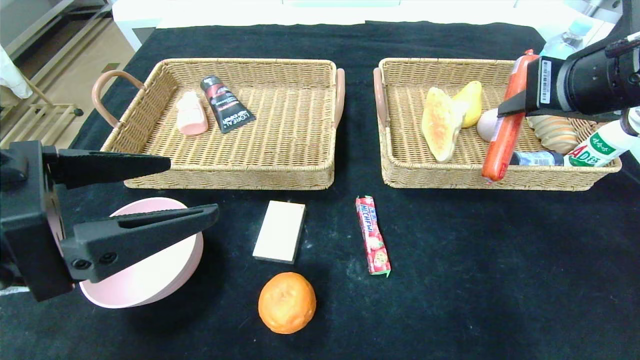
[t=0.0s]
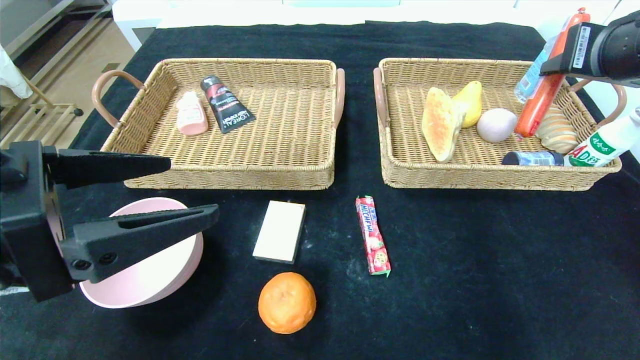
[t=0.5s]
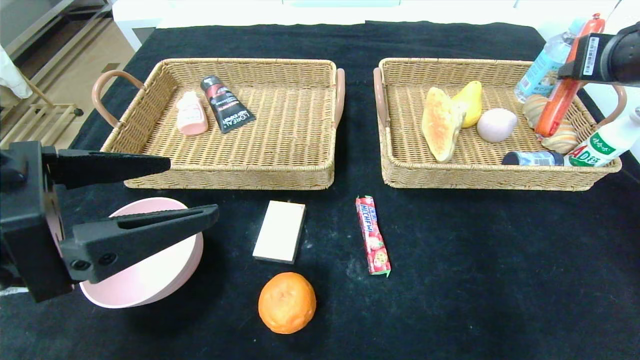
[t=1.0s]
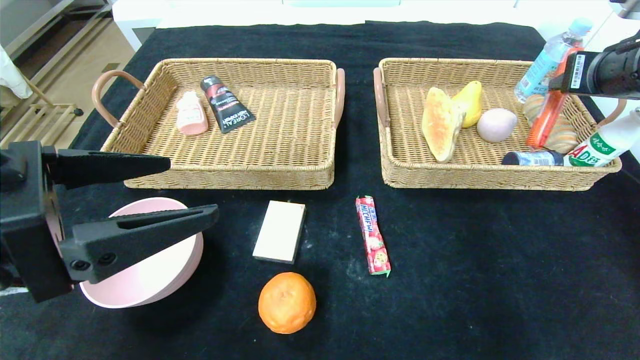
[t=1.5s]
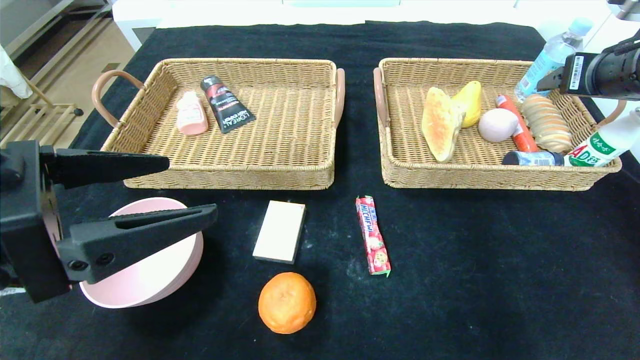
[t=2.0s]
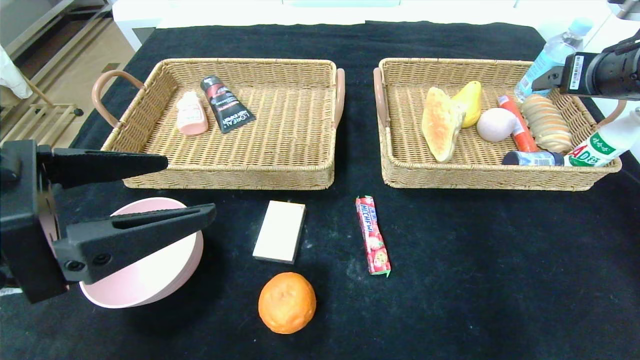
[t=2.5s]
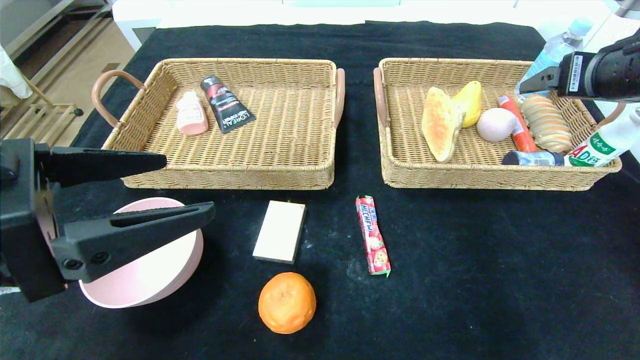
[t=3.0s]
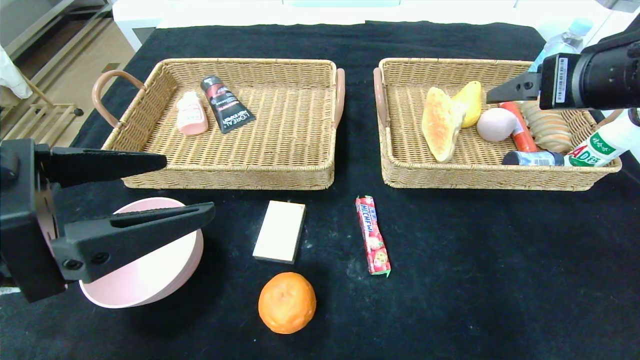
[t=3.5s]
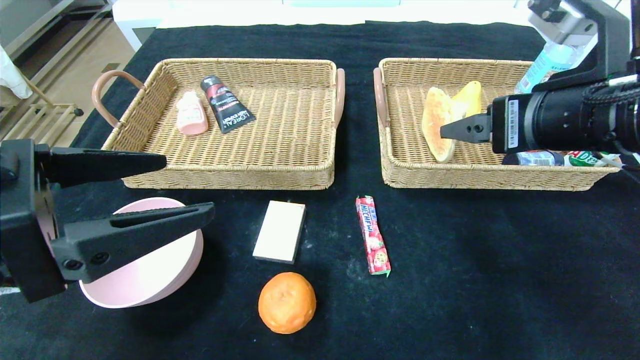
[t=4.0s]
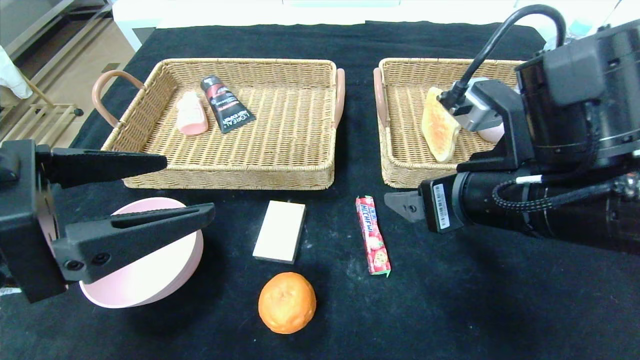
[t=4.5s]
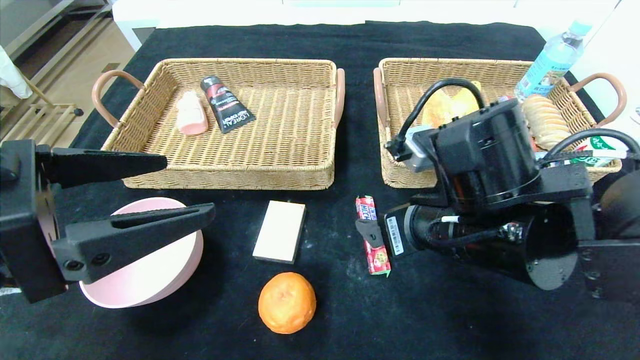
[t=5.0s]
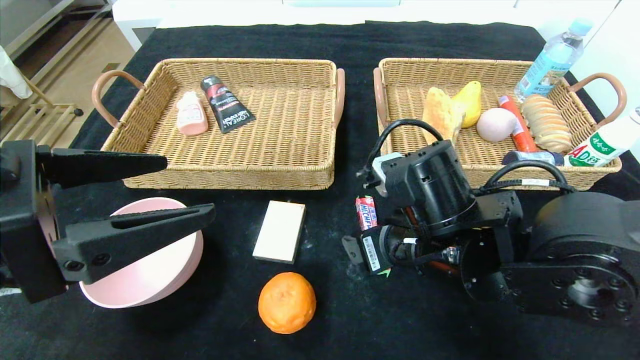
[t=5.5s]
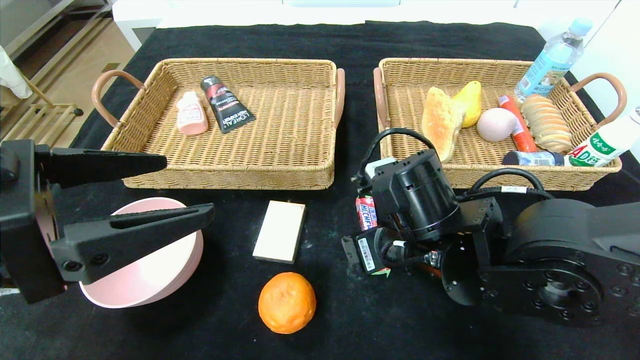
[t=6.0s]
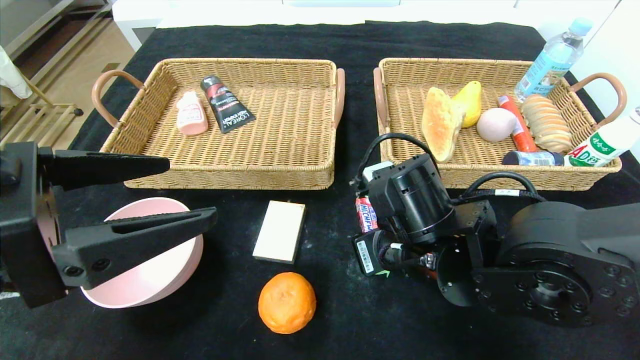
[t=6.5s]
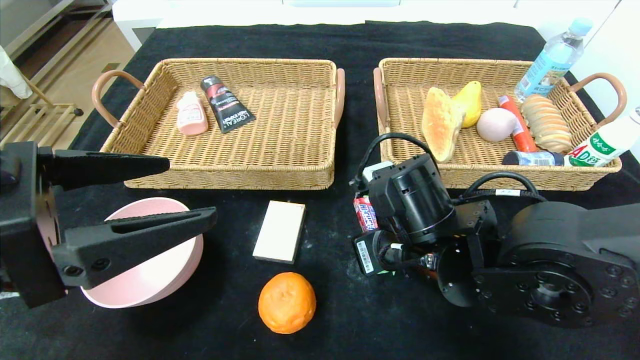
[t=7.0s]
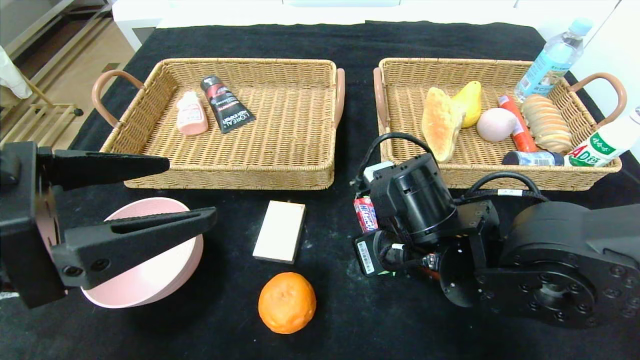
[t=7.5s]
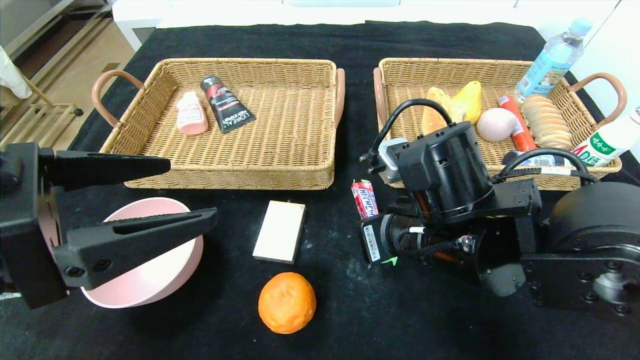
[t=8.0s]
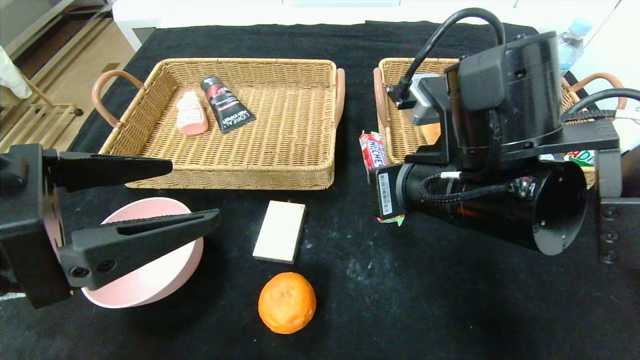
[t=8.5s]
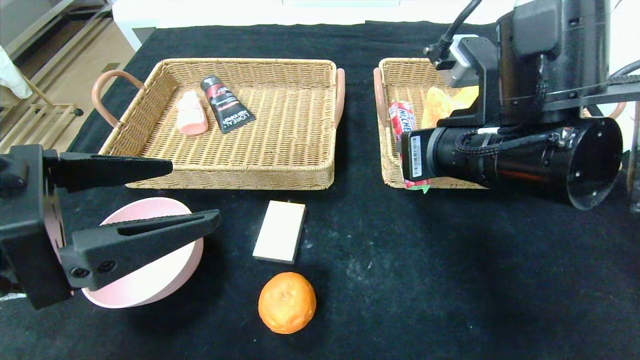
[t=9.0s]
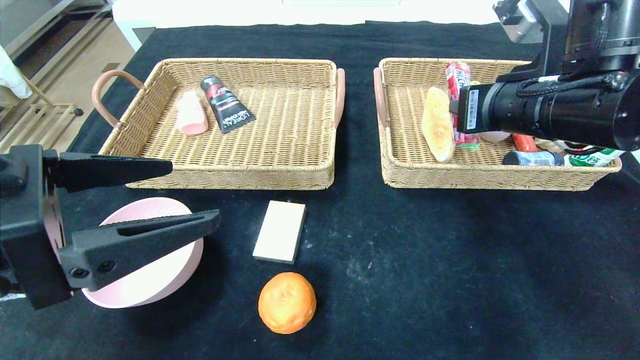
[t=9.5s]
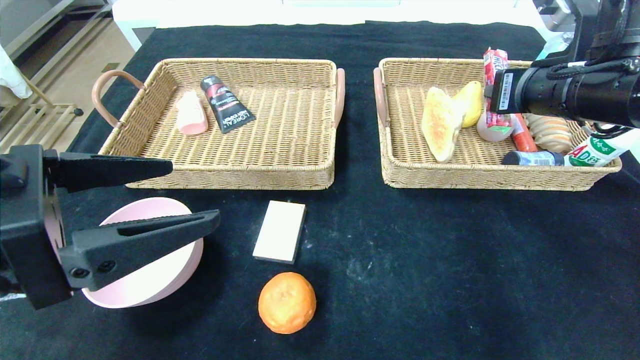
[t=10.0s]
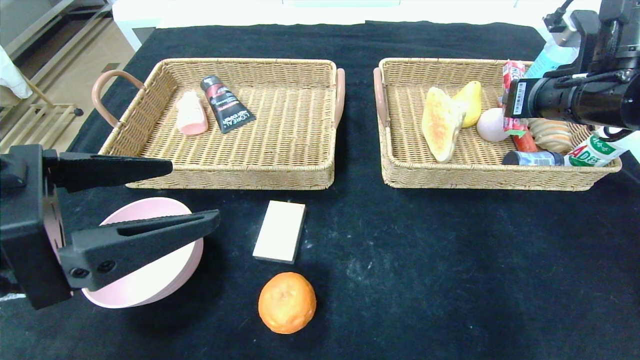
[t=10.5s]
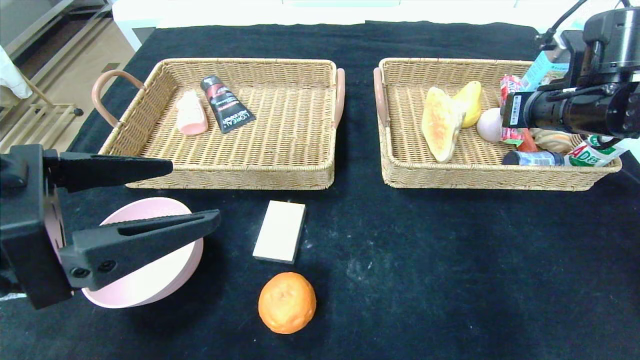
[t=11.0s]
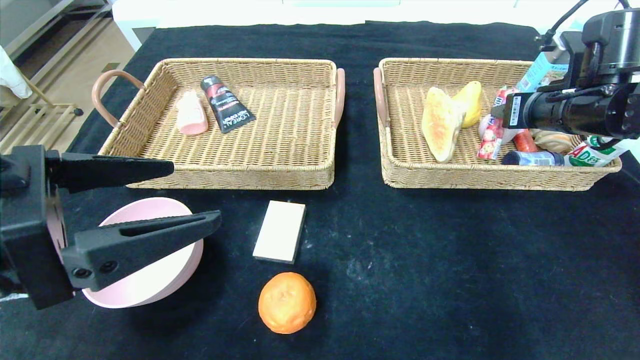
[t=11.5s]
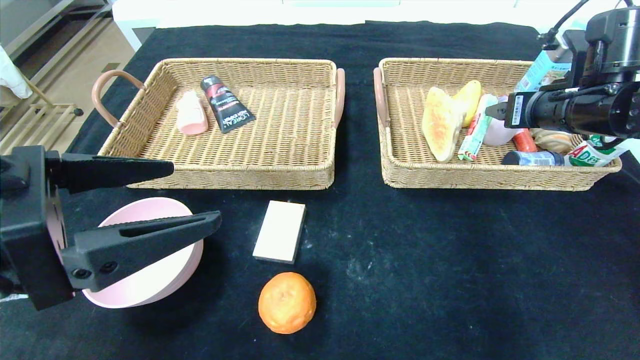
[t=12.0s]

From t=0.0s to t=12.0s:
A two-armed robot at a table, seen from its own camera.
Step, from t=0.0s to t=2.0s: Grasp the sausage and put it in the right basket.
Step, from t=2.5s to t=11.5s: Grasp the fruit fudge and put it in the right basket.
From t=0.0s to t=2.0s: The right gripper heads to the right and forward, covering some 10 cm, and opens its fingers.
From t=2.0s to t=4.0s: The right gripper goes about 15 cm to the left and backward.
From t=4.0s to t=6.0s: The right gripper shifts approximately 20 cm downward and to the left.
From t=6.0s to t=8.0s: The right gripper closes.
From t=8.0s to t=10.0s: The right gripper shifts roughly 20 cm to the right, upward and forward.
From t=10.0s to t=12.0s: The right gripper heads to the right, covering about 5 cm, and opens its fingers.

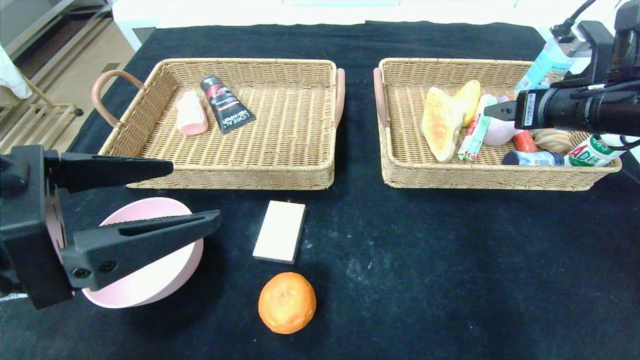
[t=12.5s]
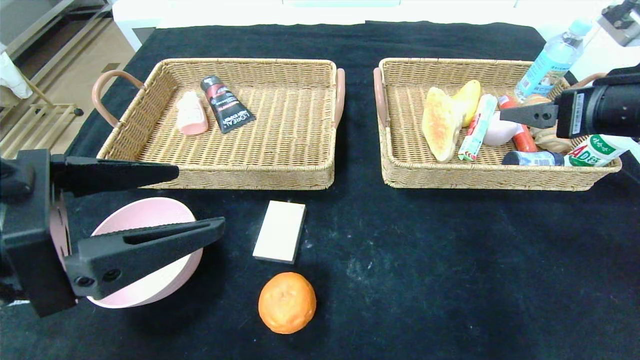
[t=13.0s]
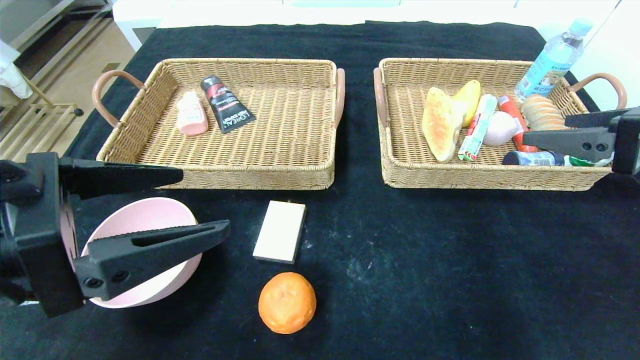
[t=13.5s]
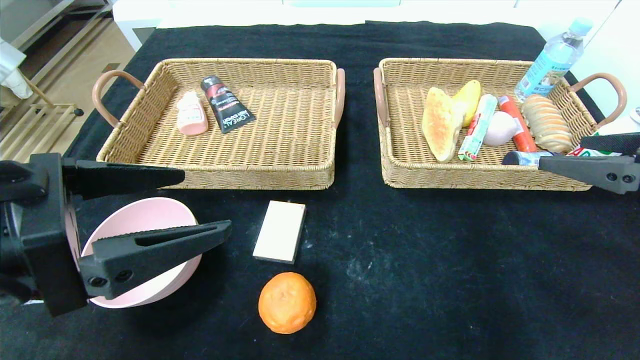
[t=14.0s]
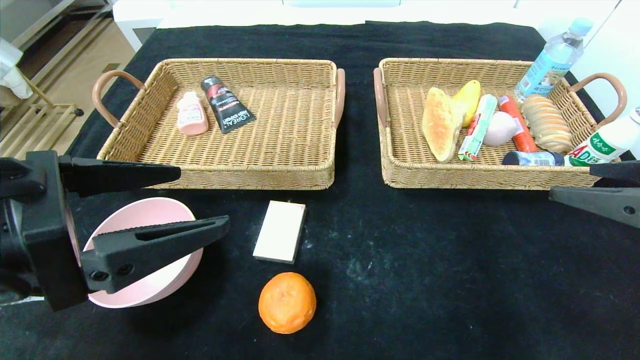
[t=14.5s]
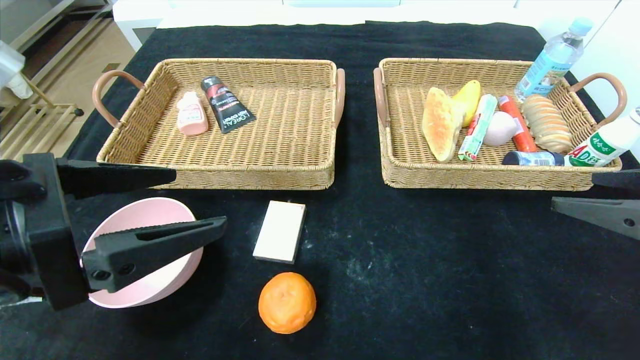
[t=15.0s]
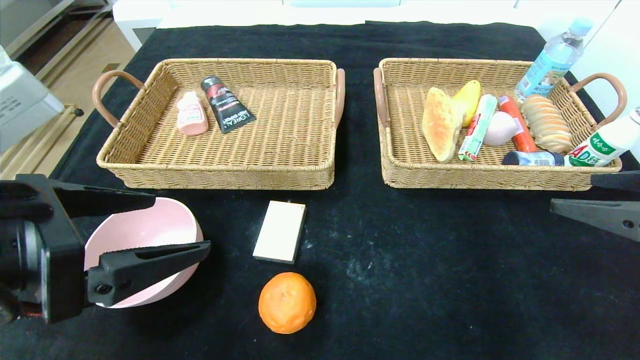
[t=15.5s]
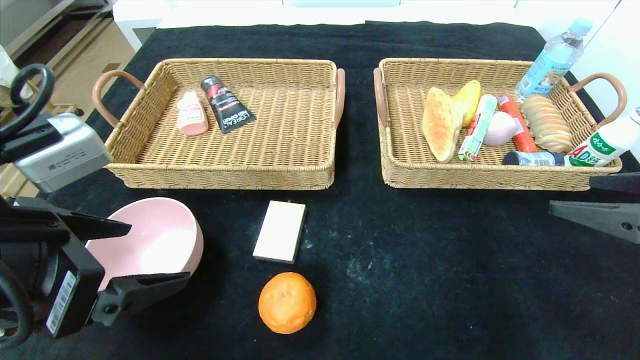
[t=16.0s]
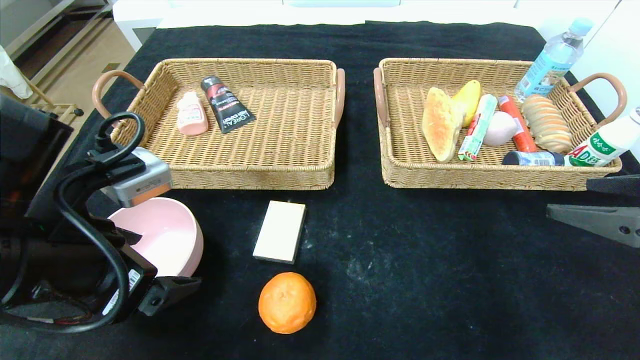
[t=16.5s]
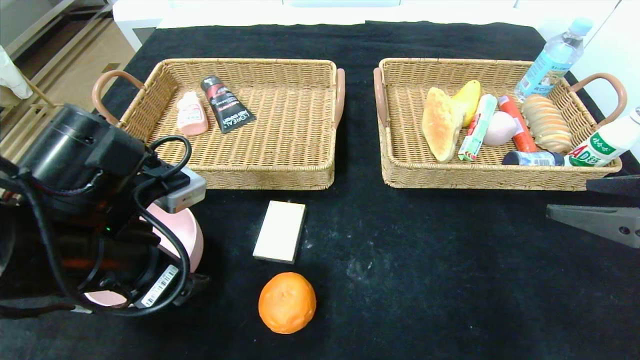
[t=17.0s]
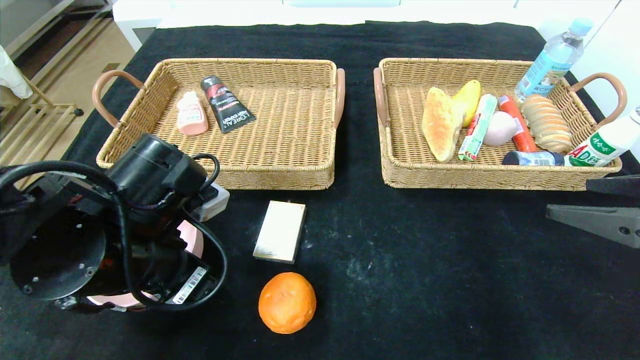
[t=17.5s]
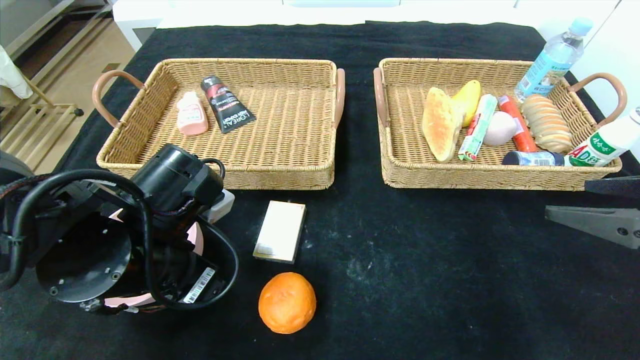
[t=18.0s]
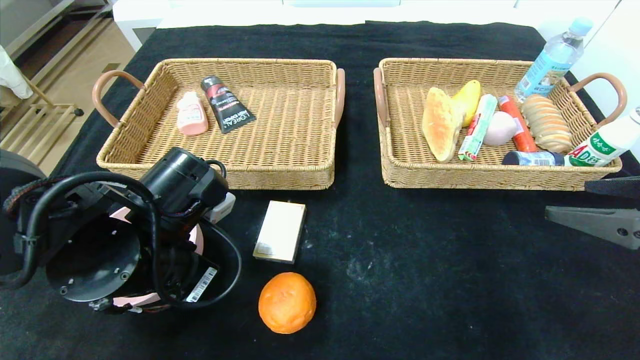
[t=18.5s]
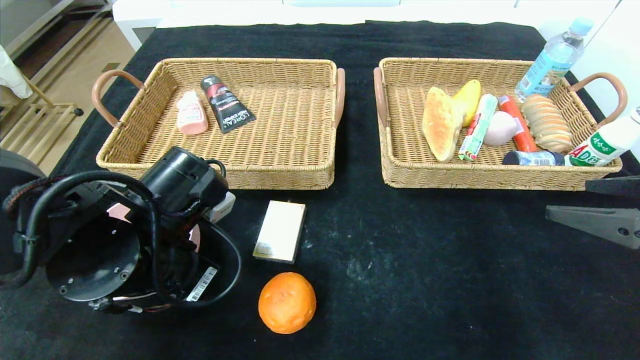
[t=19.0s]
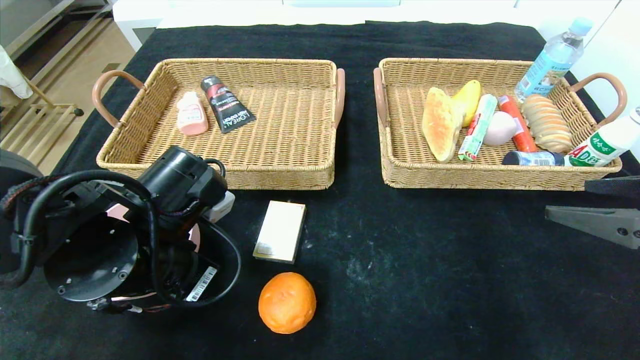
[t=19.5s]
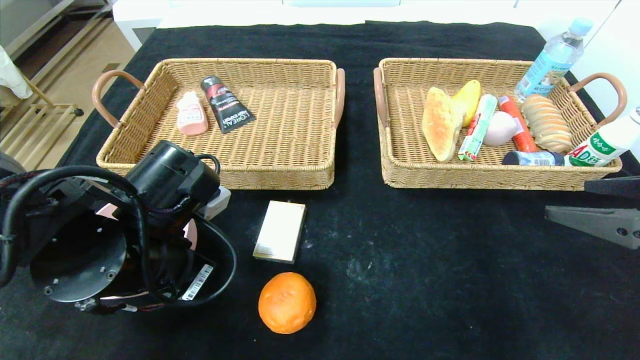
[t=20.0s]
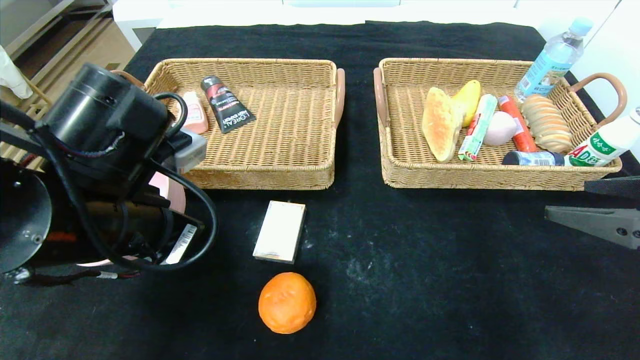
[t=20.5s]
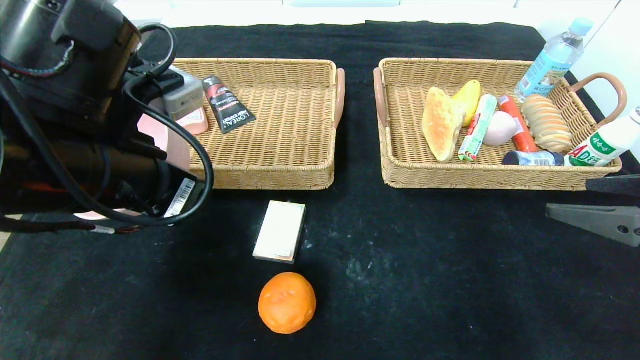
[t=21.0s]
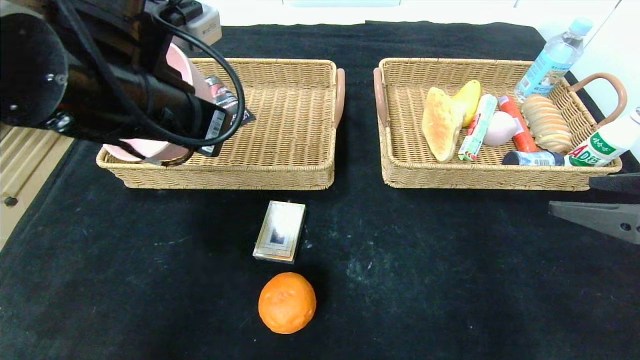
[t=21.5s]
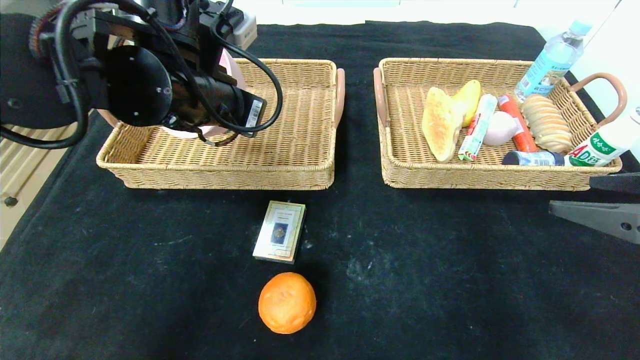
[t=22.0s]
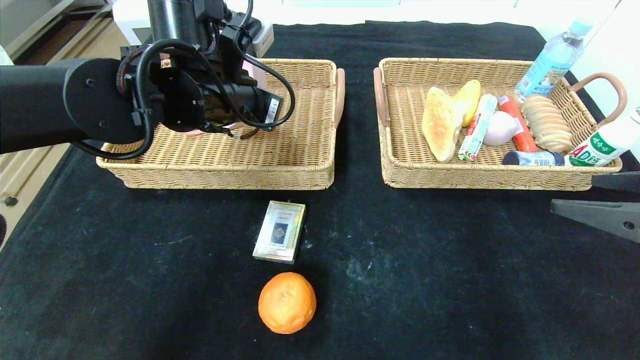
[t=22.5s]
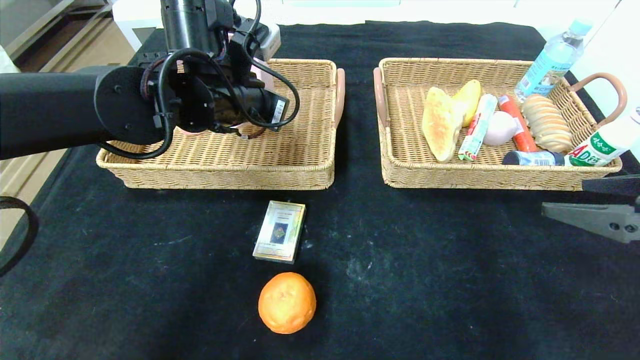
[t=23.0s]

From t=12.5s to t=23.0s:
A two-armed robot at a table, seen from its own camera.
From t=12.5s to t=14.5s: The right gripper goes some 15 cm backward.
From t=14.5s to t=16.5s: The left gripper moves some 5 cm.
From t=16.5s to t=19.0s: The left gripper shifts roughly 5 cm downward and forward, and closes its fingers.
From t=19.0s to t=21.0s: The left gripper travels upward by approximately 10 cm.
From t=21.0s to t=23.0s: The left gripper moves forward, about 15 cm.
